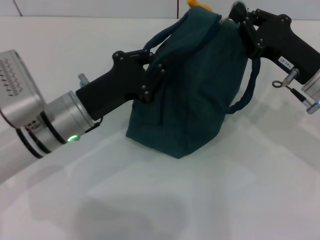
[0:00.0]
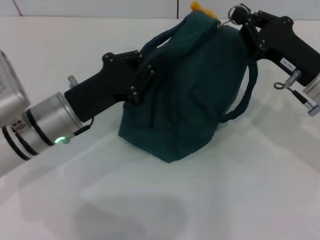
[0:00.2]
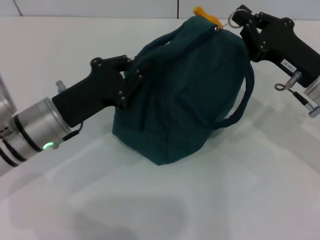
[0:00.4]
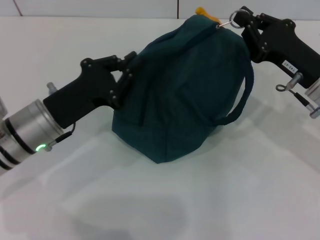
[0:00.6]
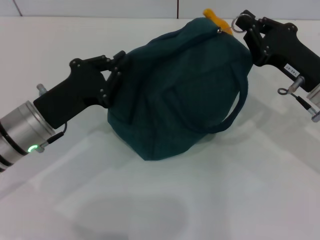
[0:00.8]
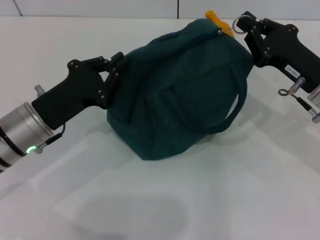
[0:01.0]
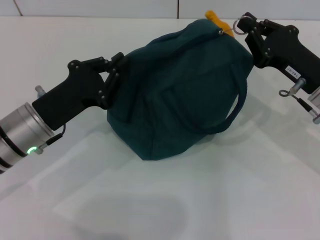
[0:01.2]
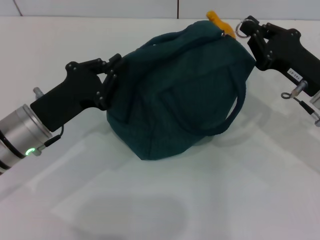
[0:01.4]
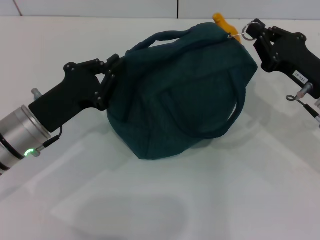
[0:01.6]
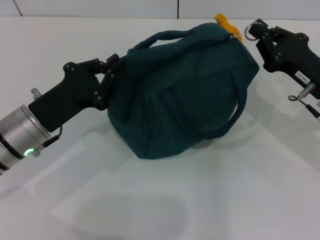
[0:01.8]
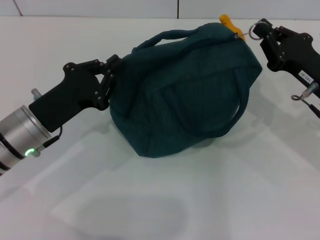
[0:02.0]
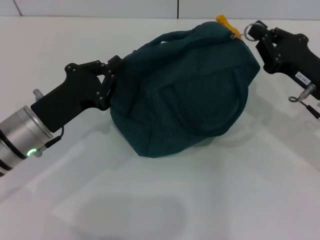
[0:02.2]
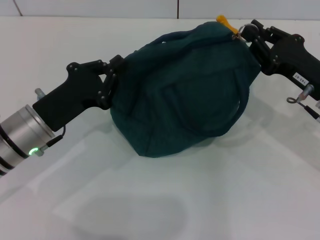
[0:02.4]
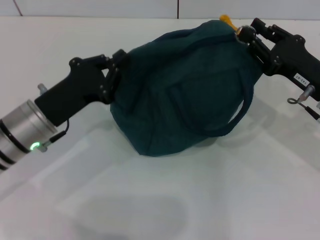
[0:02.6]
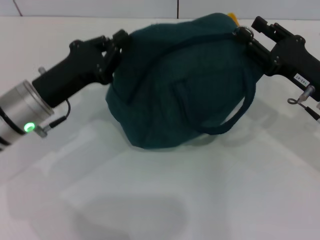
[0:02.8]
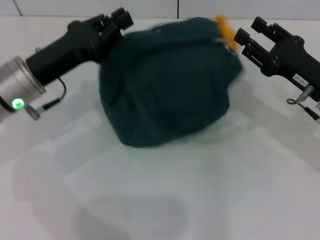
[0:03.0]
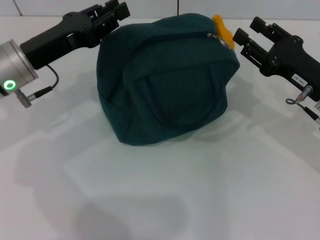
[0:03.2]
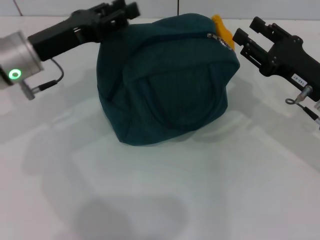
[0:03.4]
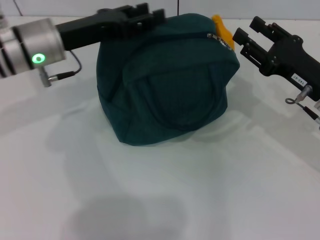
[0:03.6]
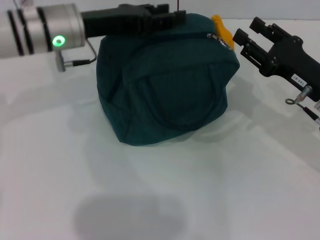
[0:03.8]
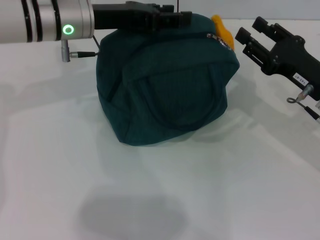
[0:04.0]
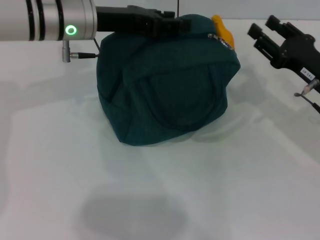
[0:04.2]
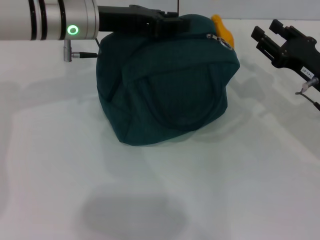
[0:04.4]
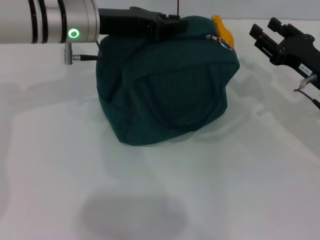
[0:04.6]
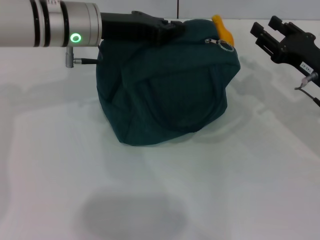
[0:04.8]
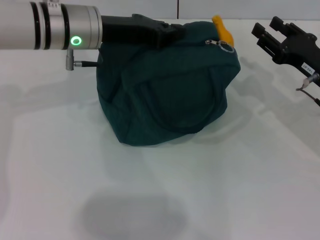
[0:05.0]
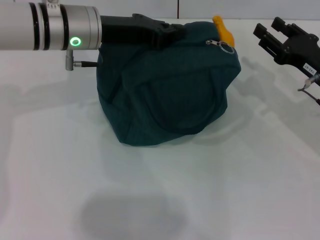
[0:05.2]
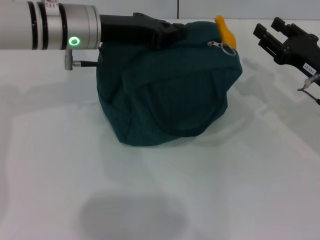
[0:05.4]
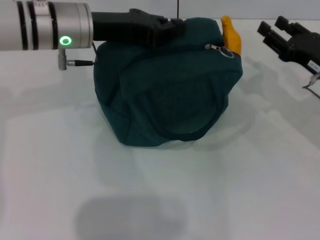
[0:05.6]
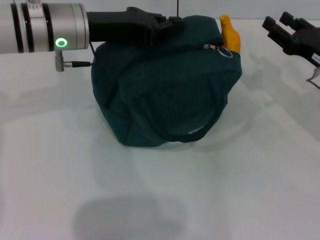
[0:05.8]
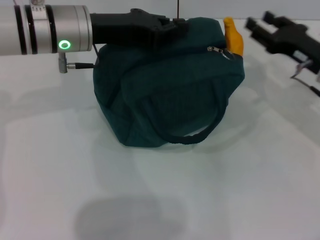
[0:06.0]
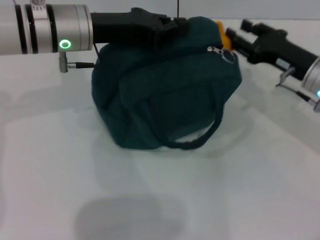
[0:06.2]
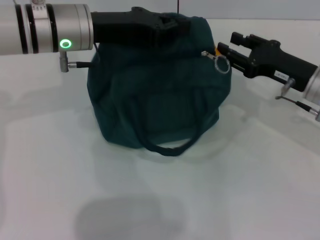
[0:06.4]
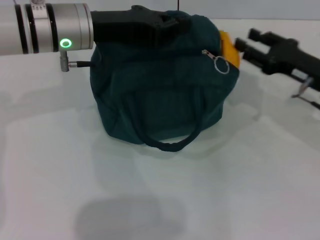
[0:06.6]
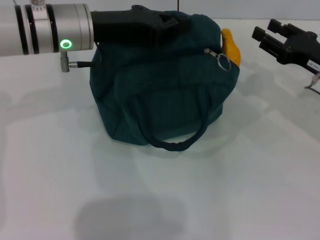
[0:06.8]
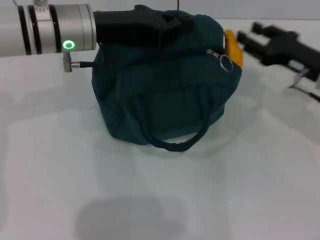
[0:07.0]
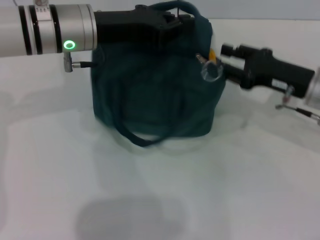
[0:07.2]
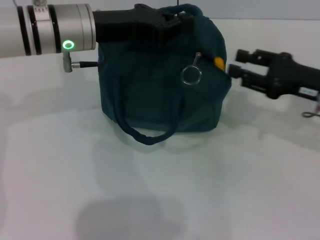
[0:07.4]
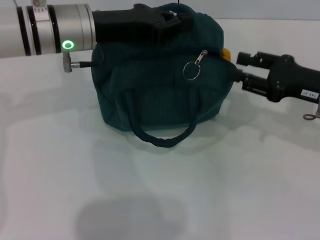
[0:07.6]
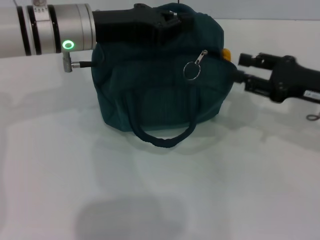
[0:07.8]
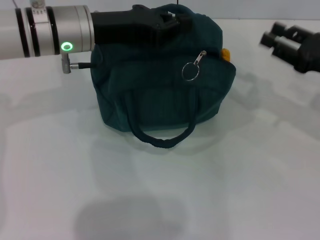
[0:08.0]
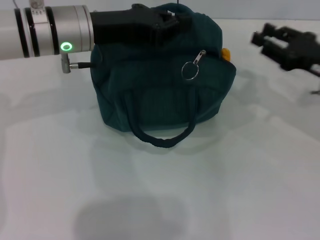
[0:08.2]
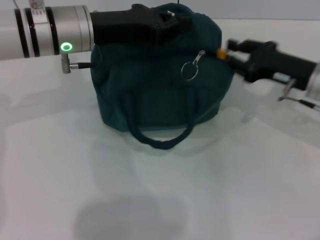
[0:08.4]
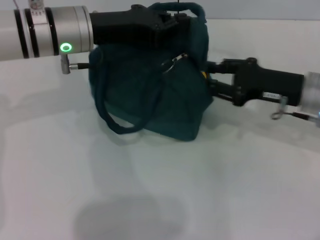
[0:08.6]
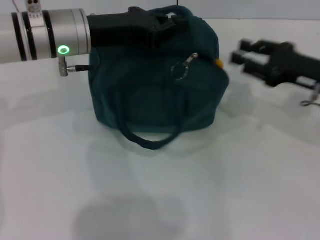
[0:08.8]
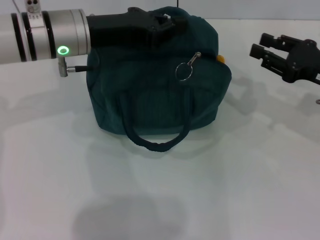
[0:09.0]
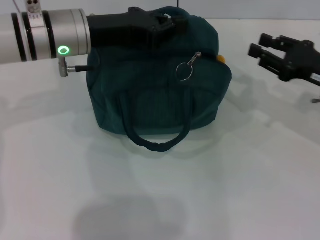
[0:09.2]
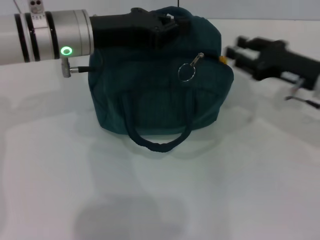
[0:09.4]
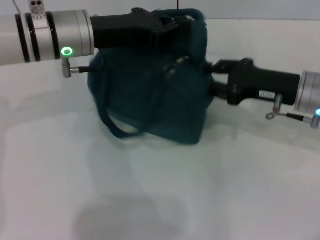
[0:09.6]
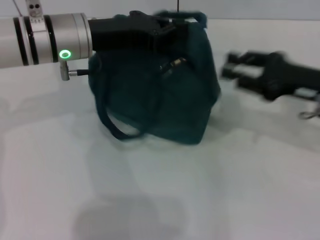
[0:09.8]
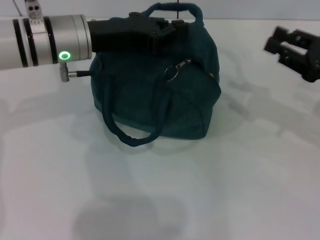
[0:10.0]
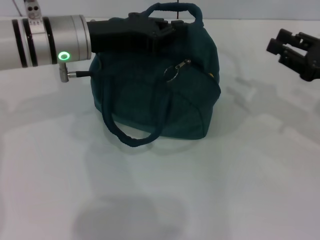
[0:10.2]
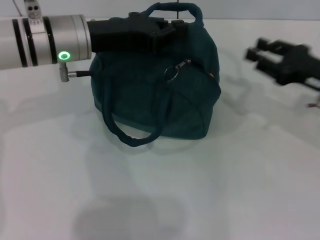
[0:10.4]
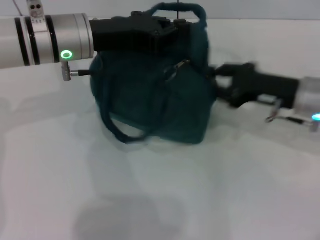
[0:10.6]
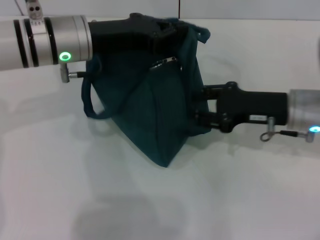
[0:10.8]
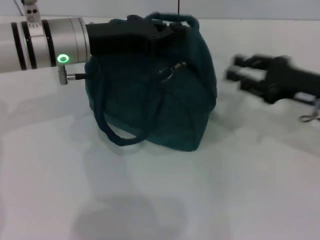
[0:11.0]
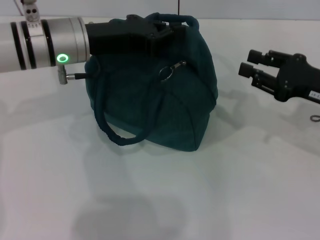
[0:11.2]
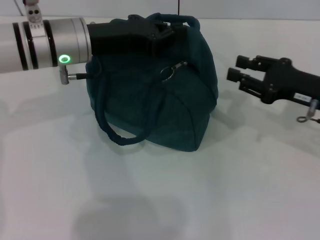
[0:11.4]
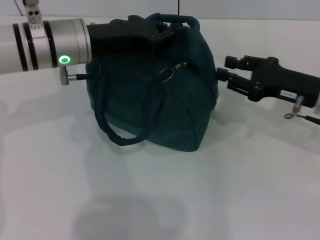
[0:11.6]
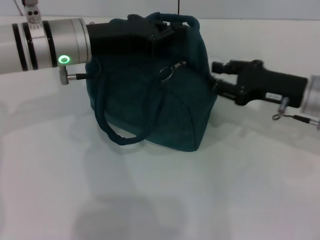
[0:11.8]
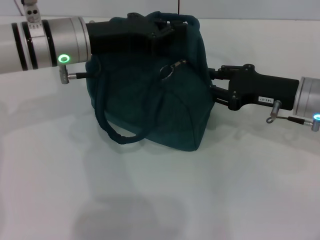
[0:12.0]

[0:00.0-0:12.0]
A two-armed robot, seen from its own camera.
0:00.0 to 0:01.6: The left gripper heads to the left, covering roughly 5 cm.
0:01.6 to 0:03.0: The left gripper shifts approximately 5 cm upward. Meanwhile the right gripper opens its fingers.
0:03.0 to 0:04.4: The left gripper moves forward, to the right and upward, some 15 cm, and opens its fingers.
0:04.4 to 0:06.0: The left gripper closes up.
0:07.6 to 0:09.0: The grippers stay close to where they were, moving slightly.
0:09.0 to 0:10.4: The right gripper goes to the left and returns, some 5 cm each way.
0:10.4 to 0:12.0: The right gripper goes left and right, about 5 cm each way, reversing 2 times.

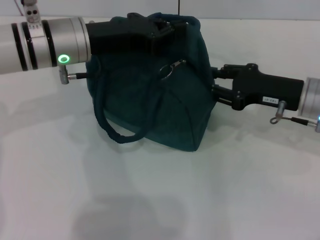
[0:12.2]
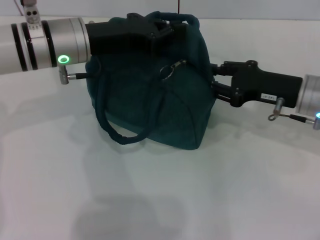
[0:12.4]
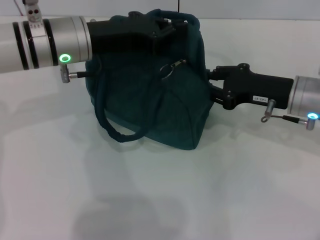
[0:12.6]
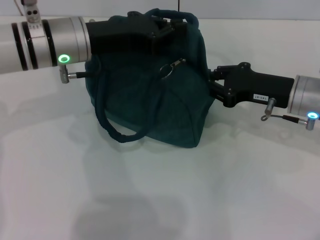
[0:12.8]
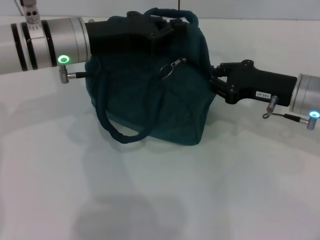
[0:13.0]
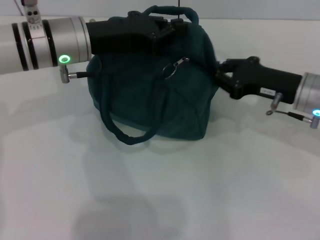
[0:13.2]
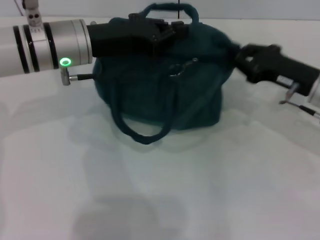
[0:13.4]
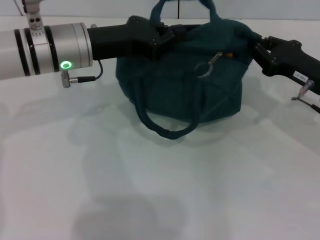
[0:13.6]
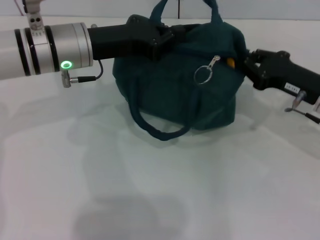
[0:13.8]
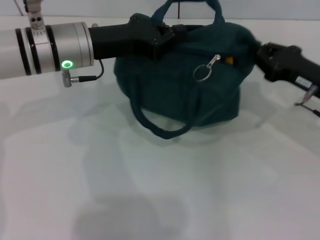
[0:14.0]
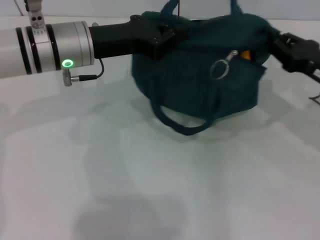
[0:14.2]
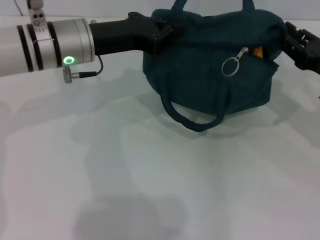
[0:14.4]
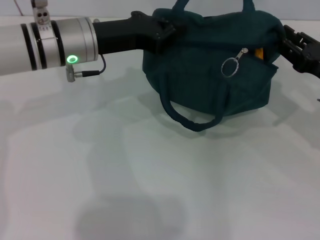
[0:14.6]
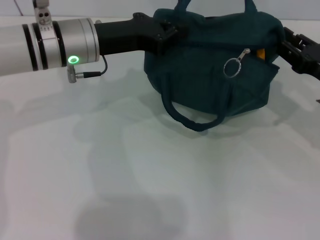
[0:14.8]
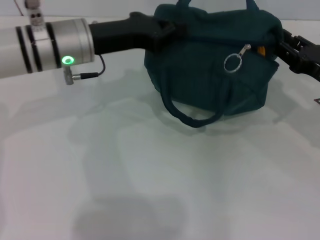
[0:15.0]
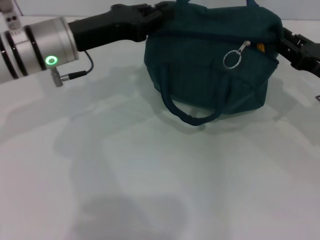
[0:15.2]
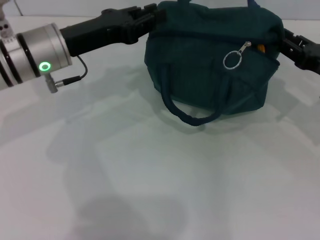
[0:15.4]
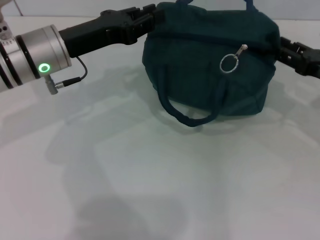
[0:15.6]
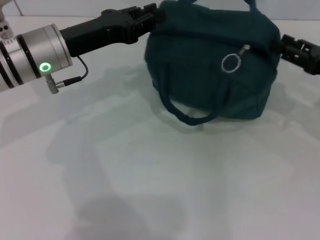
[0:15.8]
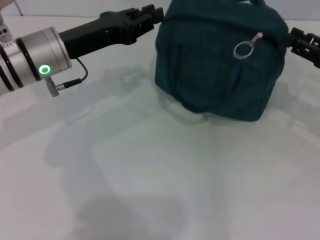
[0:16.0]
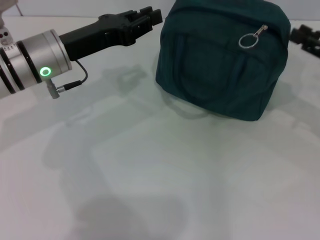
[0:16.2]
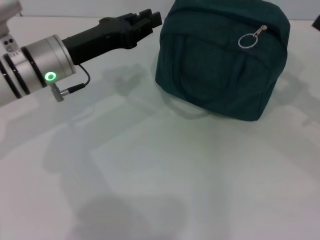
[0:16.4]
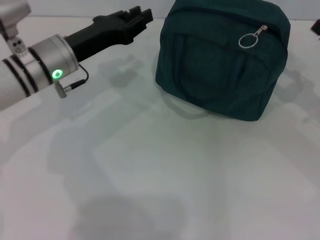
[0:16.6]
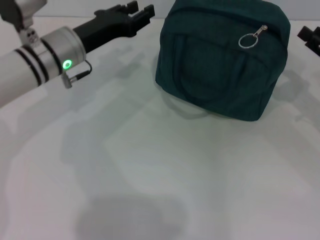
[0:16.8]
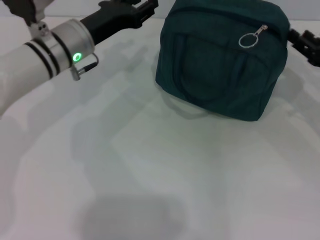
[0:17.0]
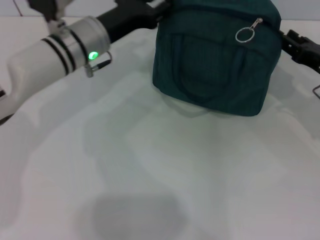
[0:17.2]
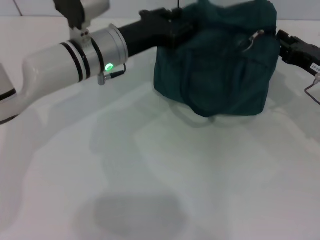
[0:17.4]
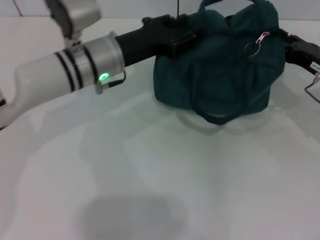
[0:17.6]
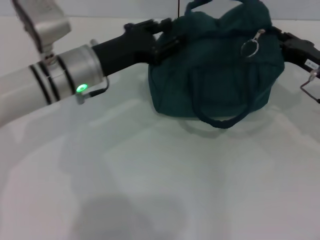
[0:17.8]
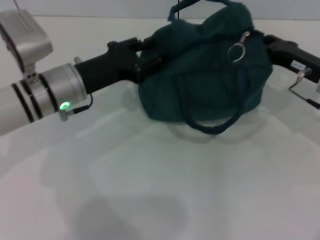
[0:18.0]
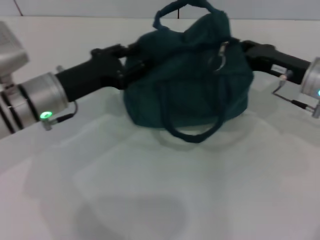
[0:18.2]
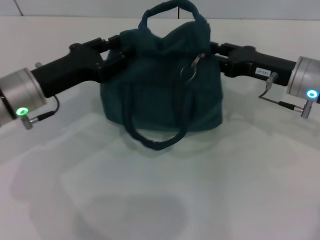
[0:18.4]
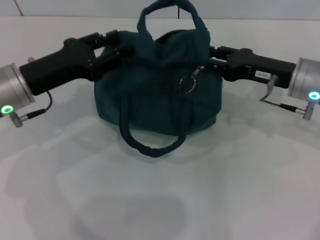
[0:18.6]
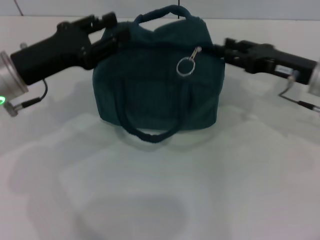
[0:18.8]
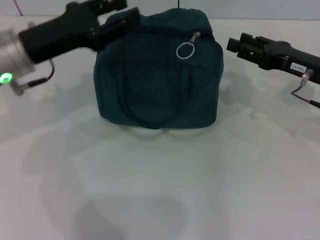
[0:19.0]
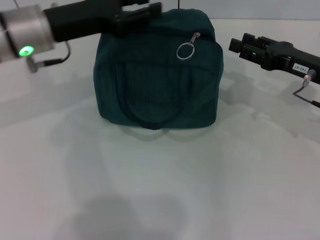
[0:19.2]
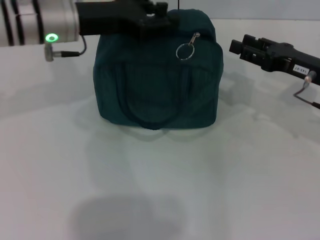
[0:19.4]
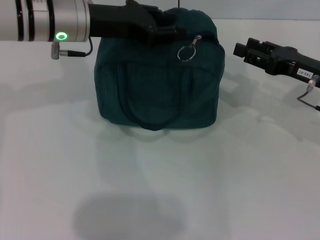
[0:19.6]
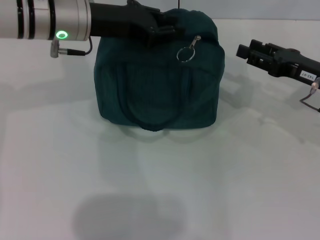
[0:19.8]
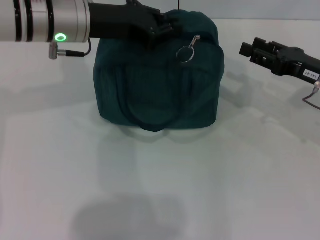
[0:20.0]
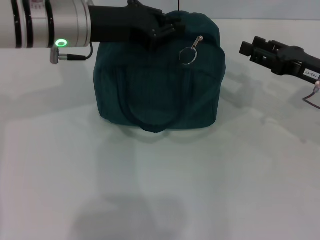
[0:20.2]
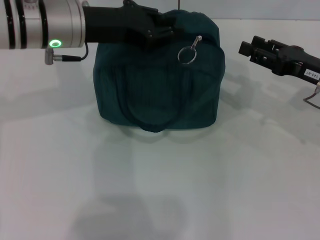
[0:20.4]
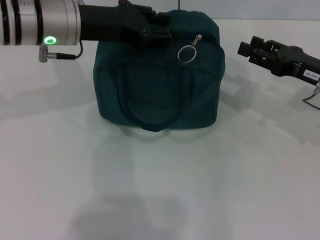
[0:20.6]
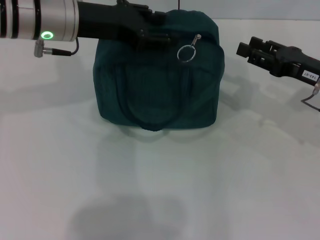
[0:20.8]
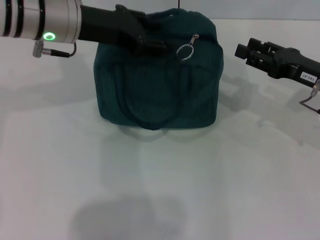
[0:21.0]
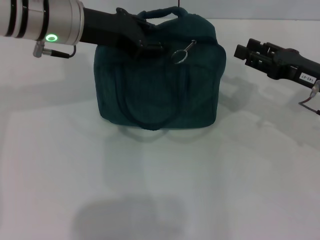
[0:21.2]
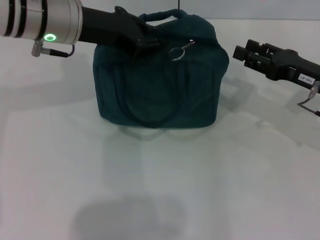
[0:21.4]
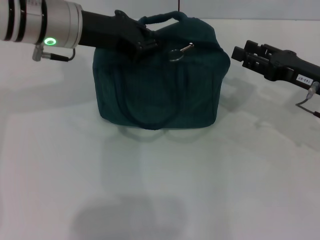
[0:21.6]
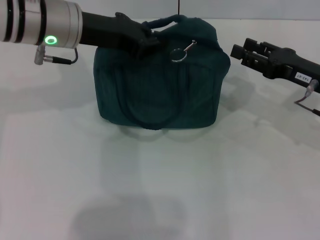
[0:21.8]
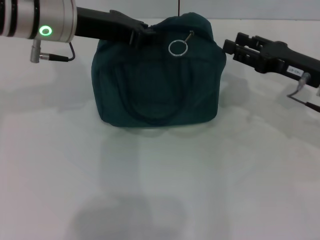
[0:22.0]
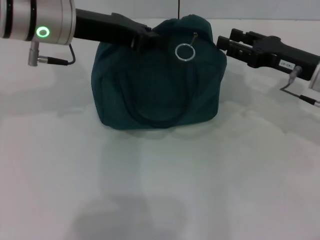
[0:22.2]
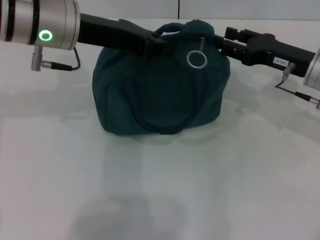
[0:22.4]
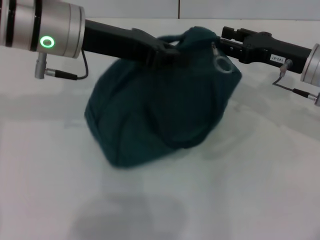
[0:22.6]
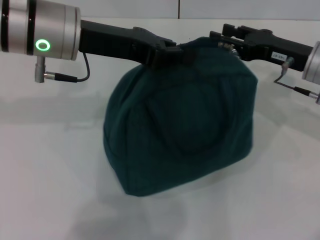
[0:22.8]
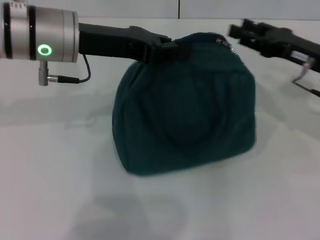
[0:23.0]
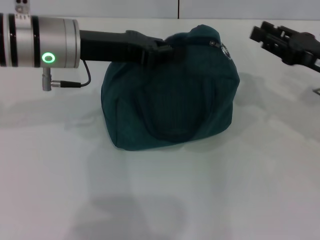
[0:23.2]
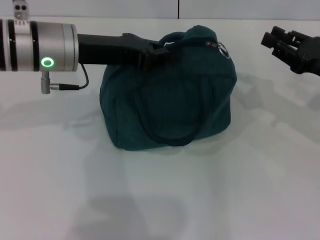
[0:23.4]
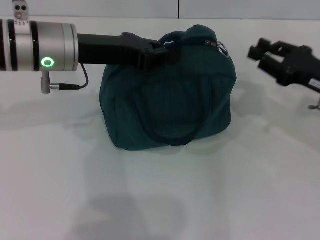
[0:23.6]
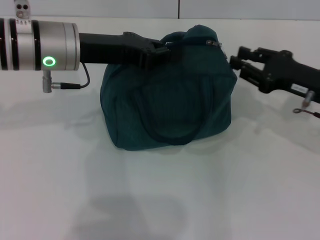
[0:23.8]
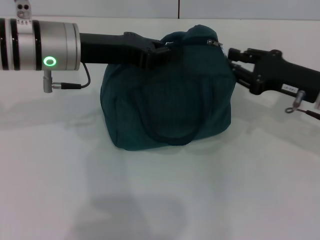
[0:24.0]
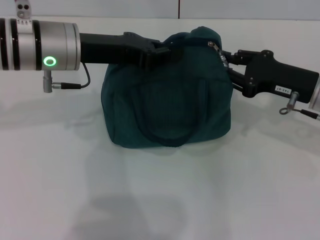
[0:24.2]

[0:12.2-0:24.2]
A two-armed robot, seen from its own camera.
0:13.8 to 0:15.2: The right gripper opens its fingers.
0:15.2 to 0:16.6: The right gripper changes place by roughly 5 cm.
0:16.6 to 0:18.2: The right gripper shifts roughly 10 cm to the left and forward. Meanwhile the left gripper goes to the right and returns, approximately 5 cm each way.
0:18.2 to 0:19.8: The left gripper travels upward and forward by approximately 10 cm.
0:19.8 to 0:21.2: The grippers make only small movements.
0:21.2 to 0:22.6: The left gripper closes its fingers; the right gripper changes place by about 5 cm.
